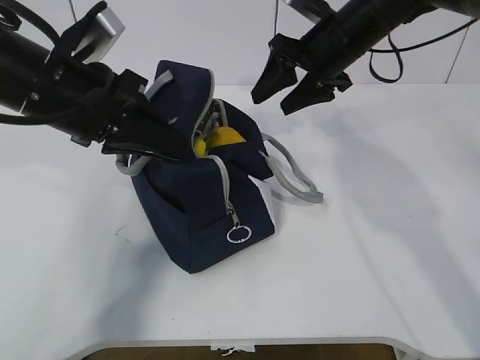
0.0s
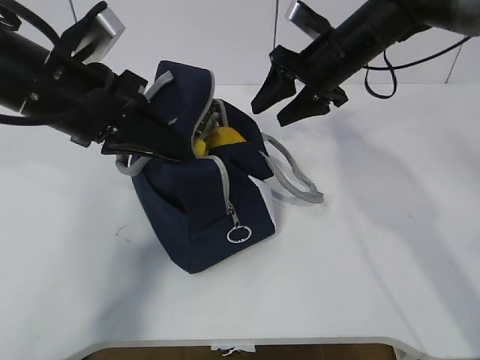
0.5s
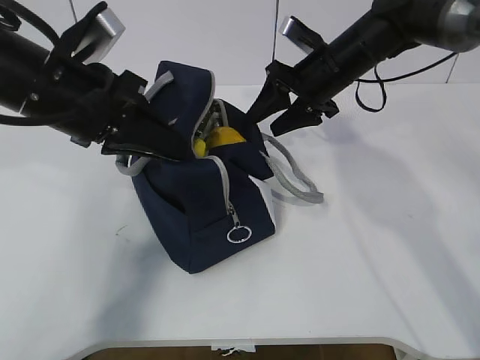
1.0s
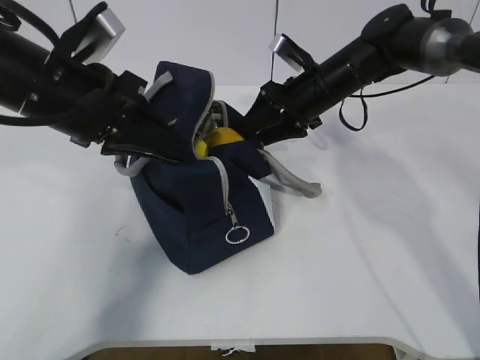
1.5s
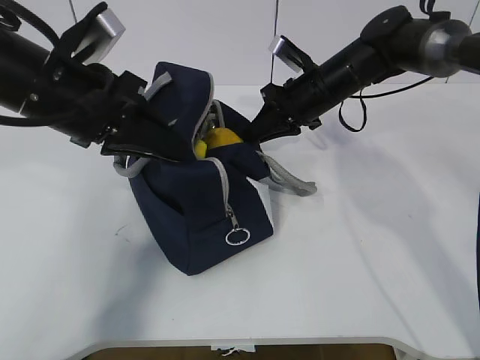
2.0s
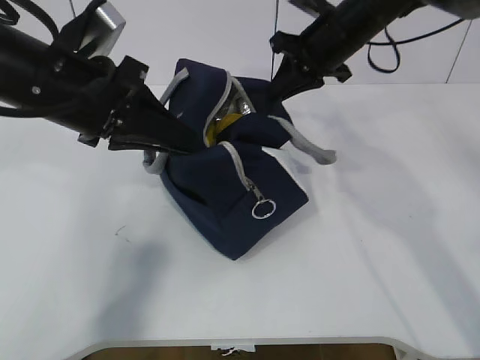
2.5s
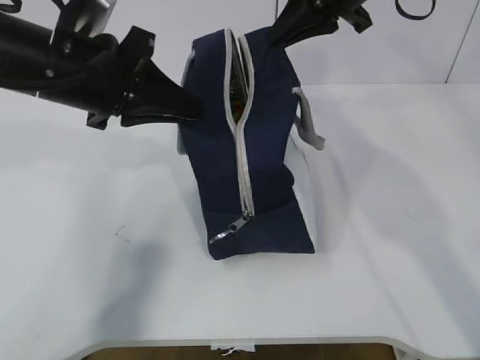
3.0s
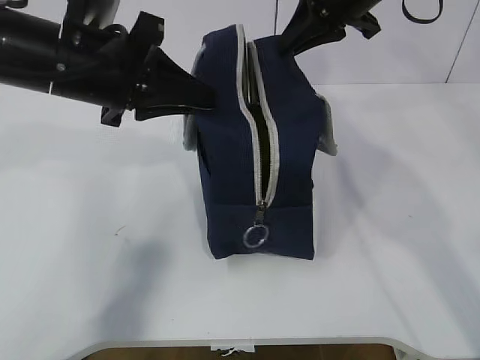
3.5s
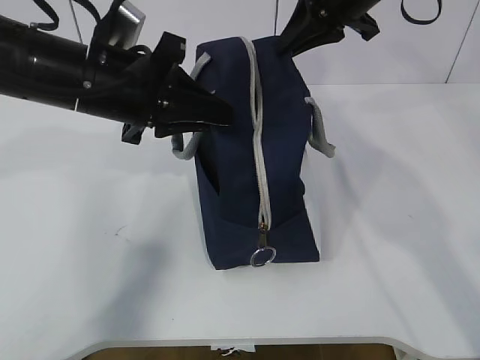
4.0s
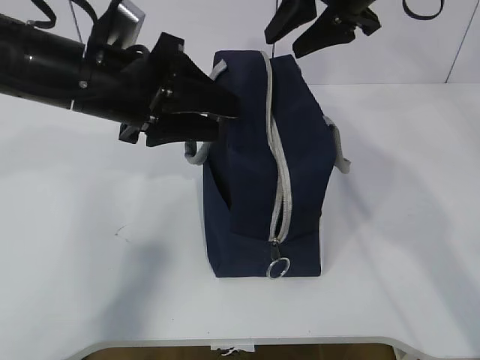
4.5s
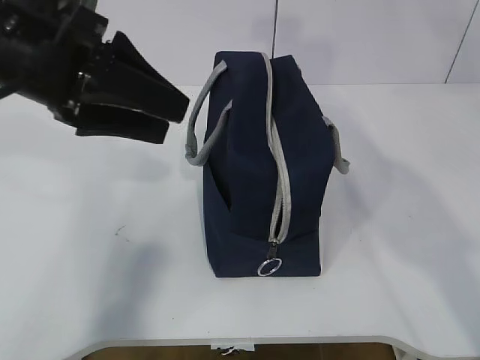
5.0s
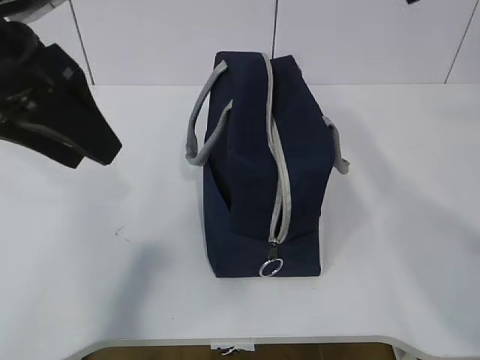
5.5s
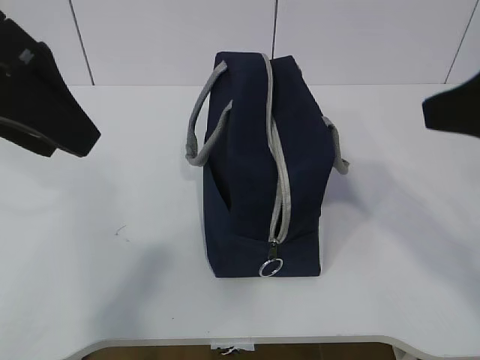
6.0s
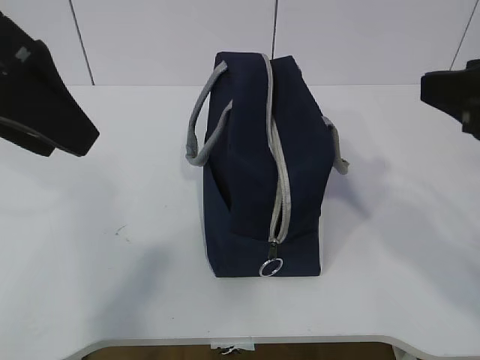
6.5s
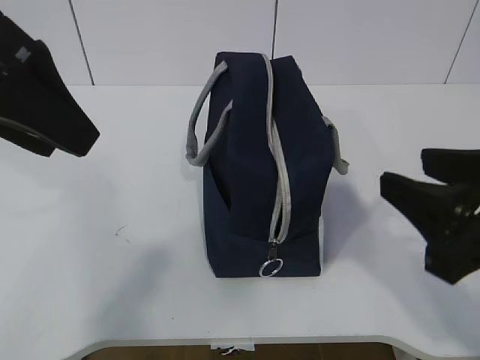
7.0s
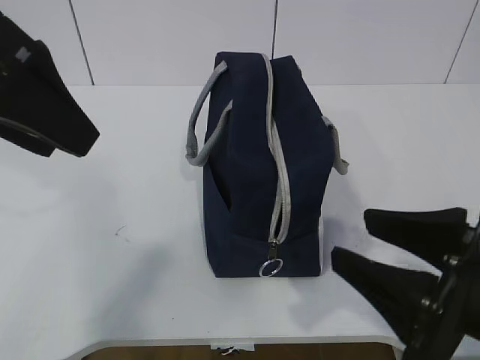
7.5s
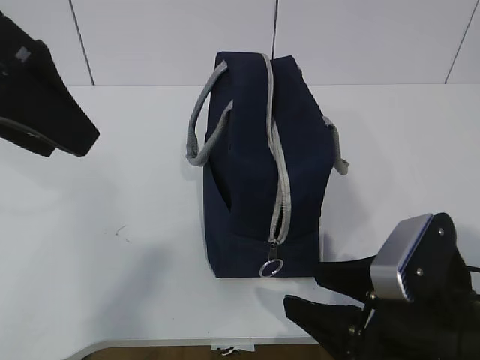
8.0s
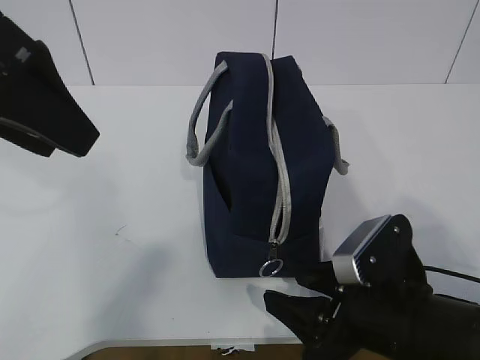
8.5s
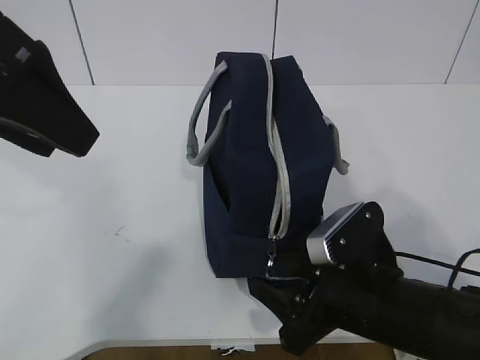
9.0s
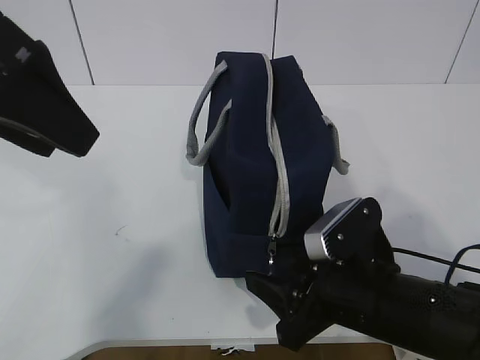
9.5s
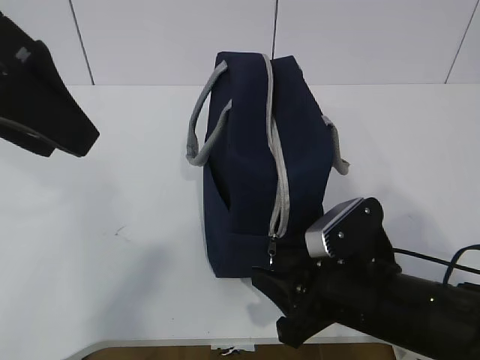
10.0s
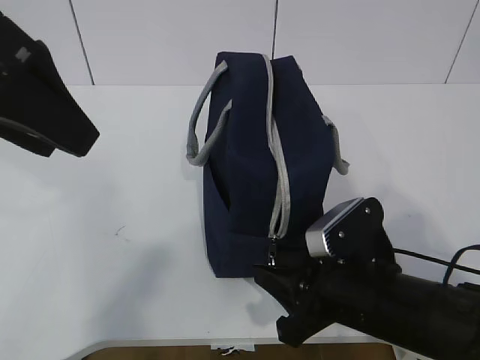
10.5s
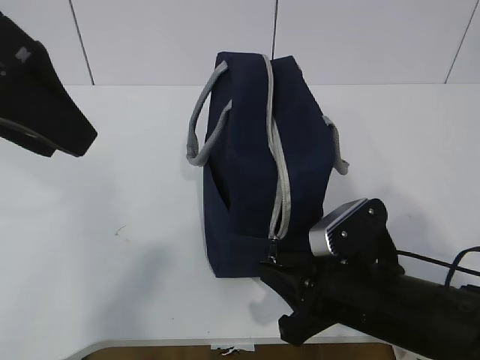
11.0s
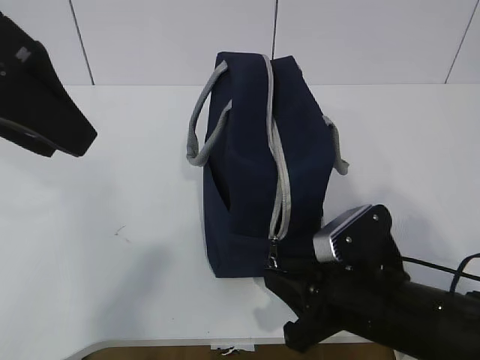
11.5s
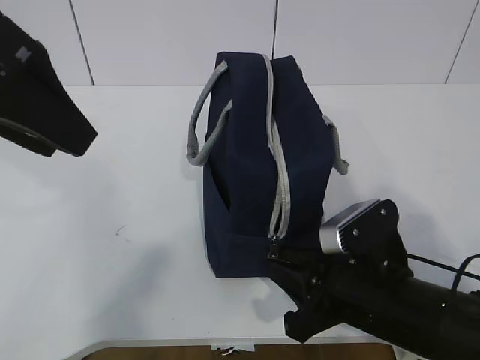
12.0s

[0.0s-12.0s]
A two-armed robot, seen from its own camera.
0.0s to 2.0s: The right gripper goes roughly 10 cm downward, and closes.
2.0s to 4.0s: The right gripper shifts about 15 cm upward.
4.0s to 6.0s: The right gripper heads backward, covering approximately 25 cm, and opens, while the left gripper shifts approximately 15 cm upward, backward and to the left, and opens its fingers.
6.0s to 8.0s: The right gripper heads downward, covering some 20 cm.
8.0s to 10.0s: The right gripper shifts by about 5 cm.
10.0s to 12.0s: Neither gripper changes place.

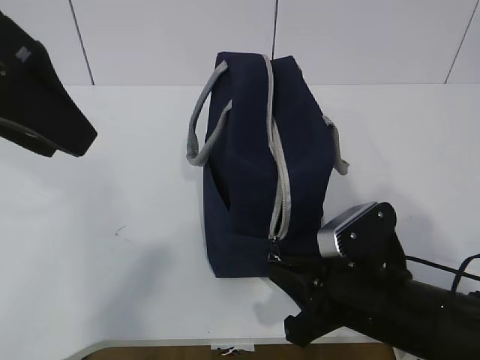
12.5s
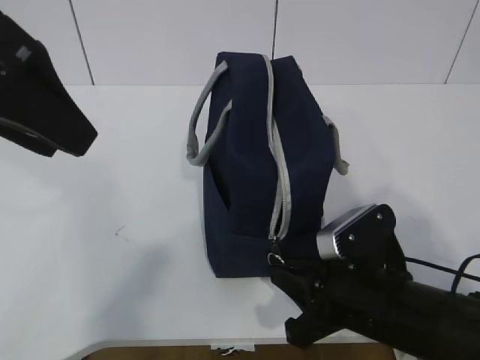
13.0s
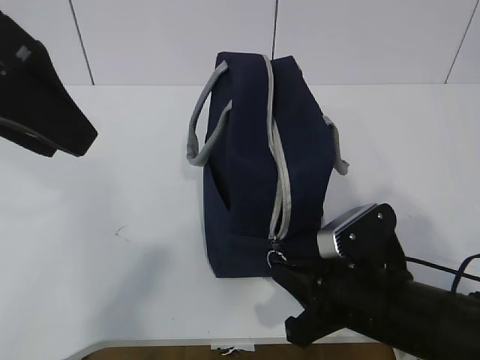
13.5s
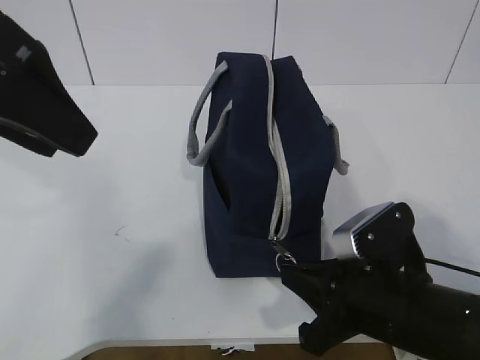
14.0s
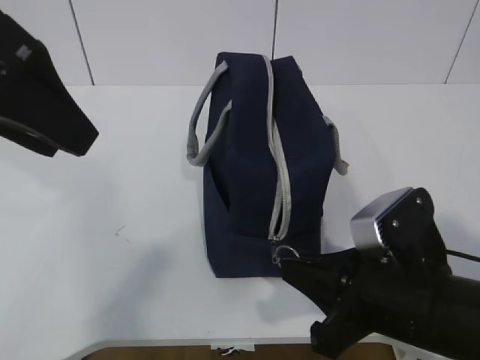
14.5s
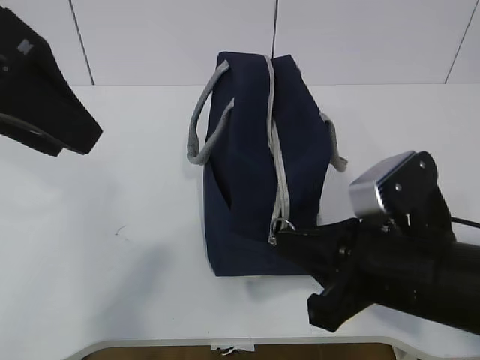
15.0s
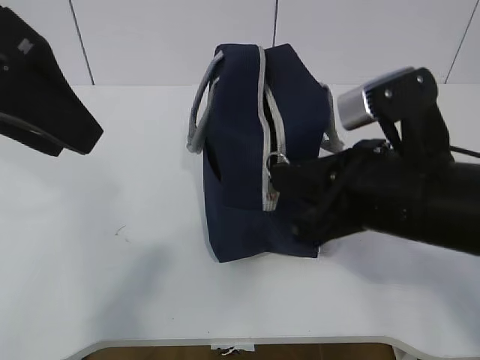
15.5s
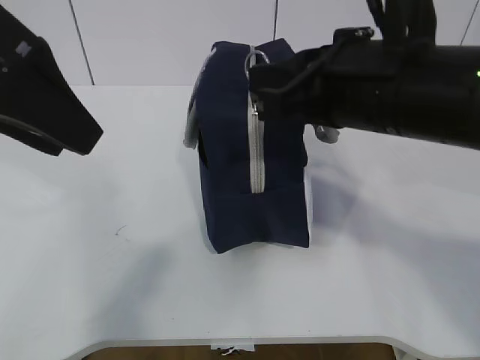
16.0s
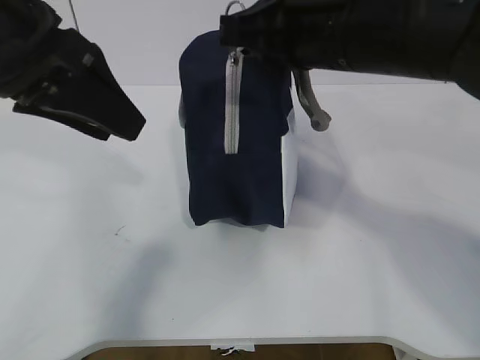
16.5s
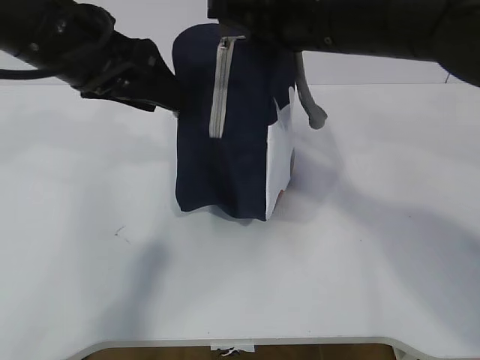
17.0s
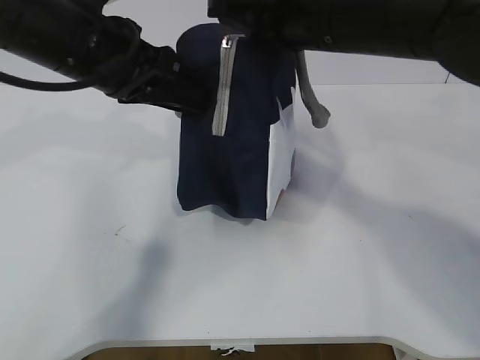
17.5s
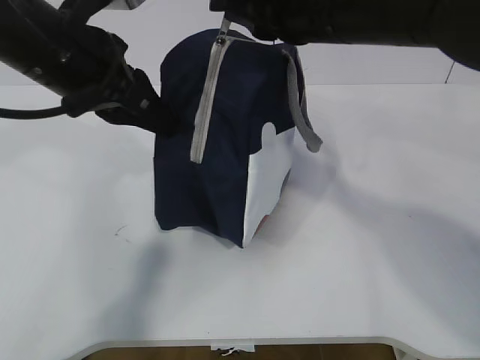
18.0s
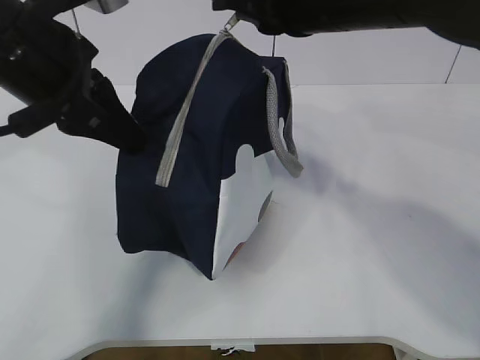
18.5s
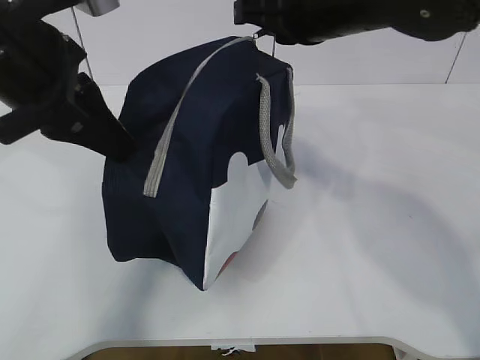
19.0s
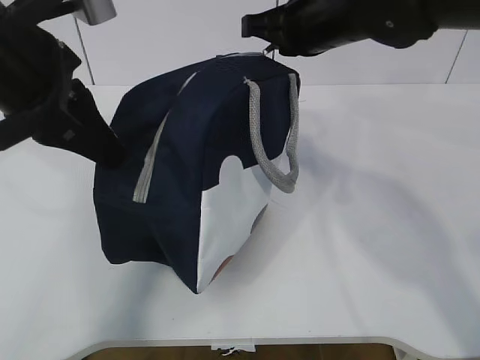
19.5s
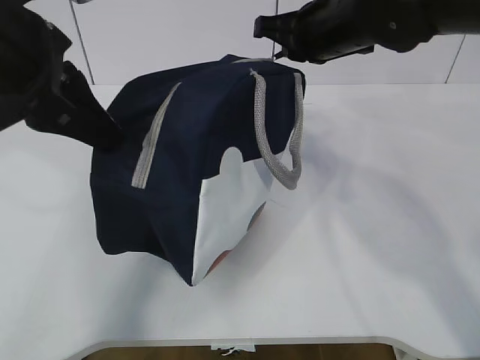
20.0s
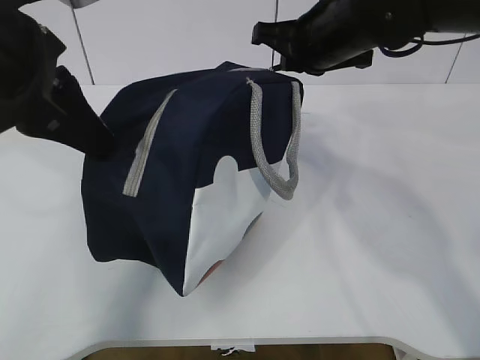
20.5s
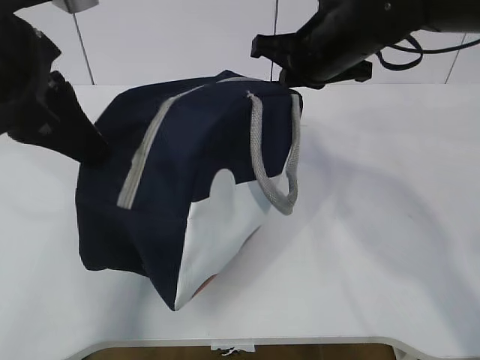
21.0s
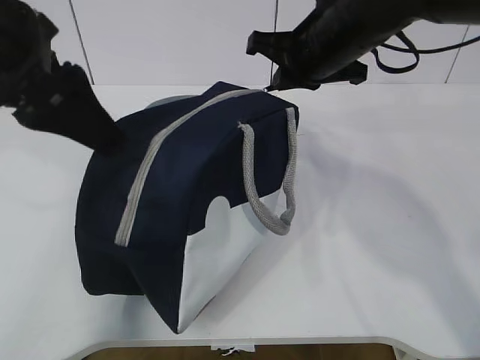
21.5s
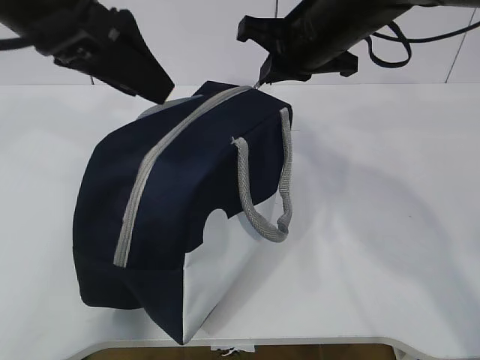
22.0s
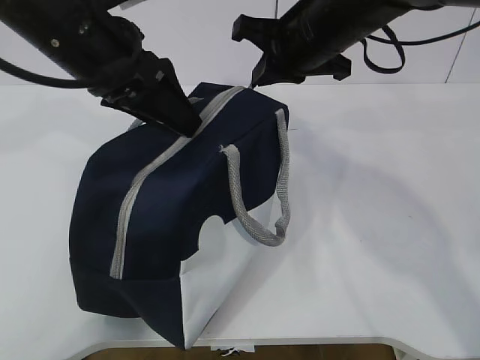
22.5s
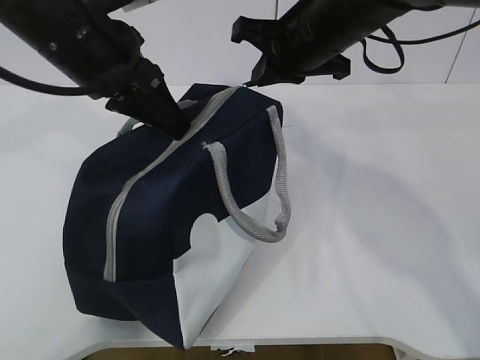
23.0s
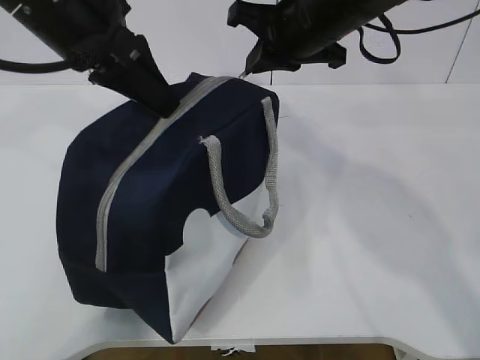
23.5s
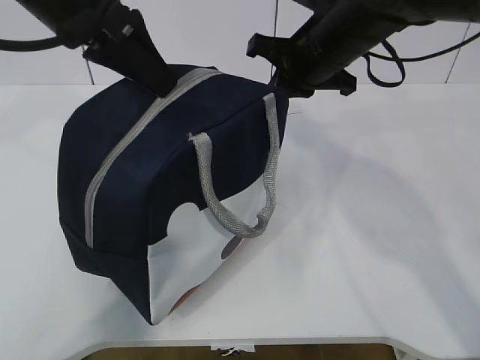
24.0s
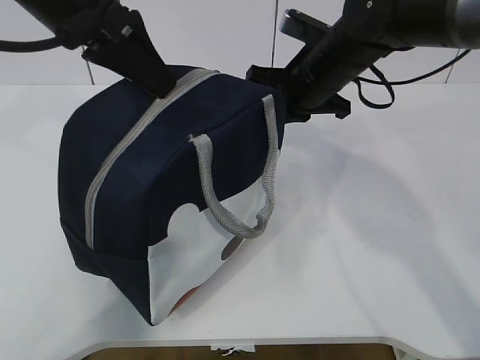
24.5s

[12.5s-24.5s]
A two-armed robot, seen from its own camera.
Step, 13.0s to 15.5s: Pull the zipper with your right hand.
Step, 16.0s to 16.5s: Grab the lunch bag with your left hand.
12.5s to 14.5s: The right gripper ends up approximately 5 cm from where it was.
14.5s to 16.5s: The right gripper is displaced upward and forward by approximately 20 cm.
16.5s to 18.5s: The left gripper closes.
18.5s to 20.5s: The right gripper is displaced forward and downward by roughly 10 cm.
20.5s to 22.5s: The left gripper travels forward by roughly 5 cm, and opens up.
22.5s to 24.5s: The left gripper closes up. The right gripper goes about 5 cm downward.

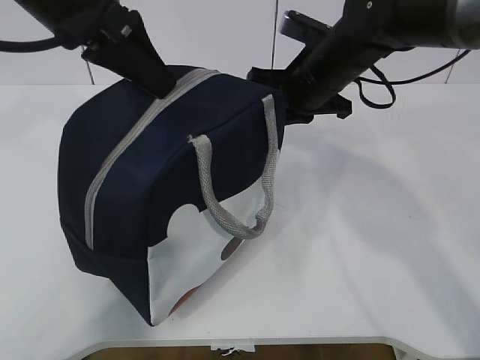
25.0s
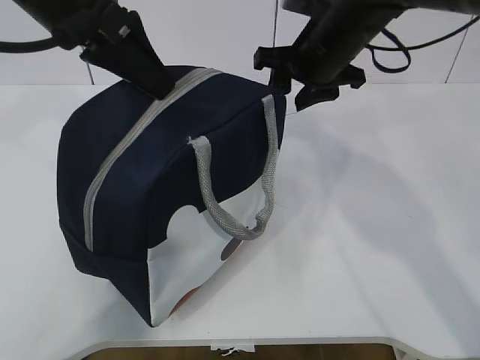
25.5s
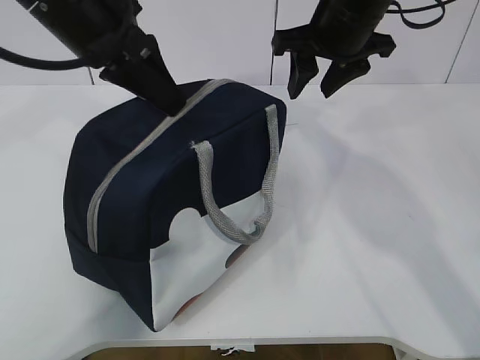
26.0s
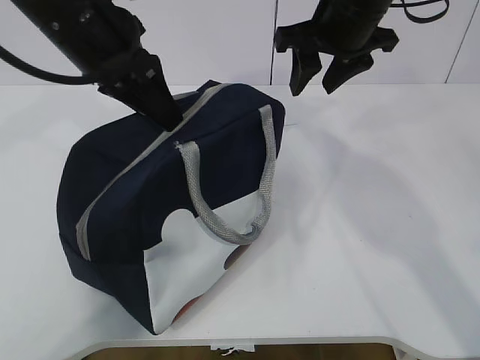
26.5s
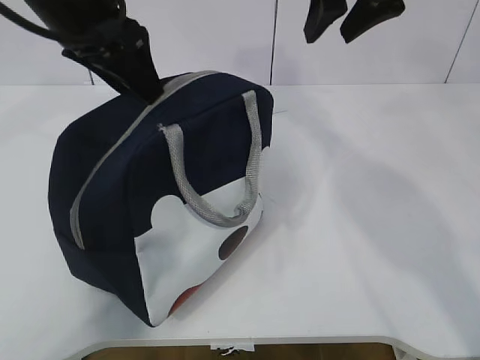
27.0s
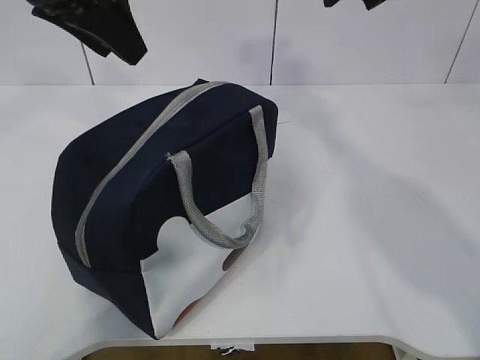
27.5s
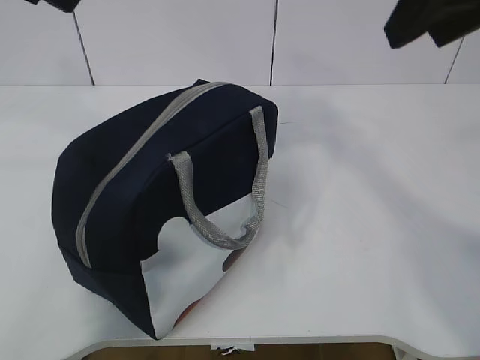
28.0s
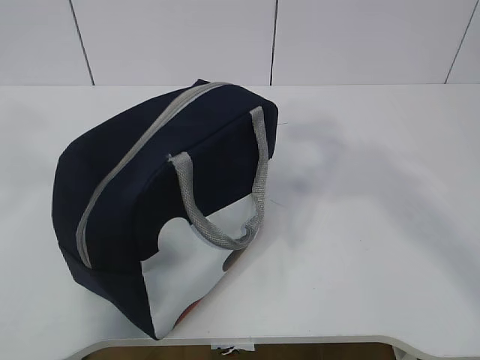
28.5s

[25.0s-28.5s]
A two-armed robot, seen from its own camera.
25.0s to 27.0s: The left gripper opens its fingers. The right gripper is displaced upward by roughly 15 cm, and opens up.
27.0s to 28.5s: The right gripper travels backward by some 25 cm; the left gripper heads backward, to the left and upward, covering about 20 cm.
